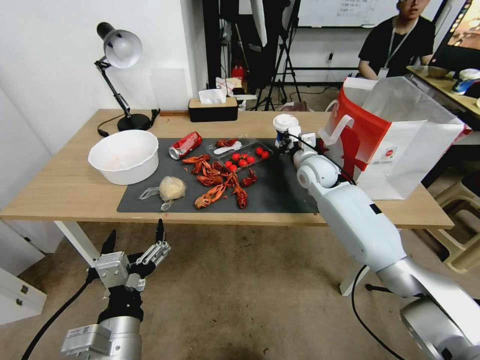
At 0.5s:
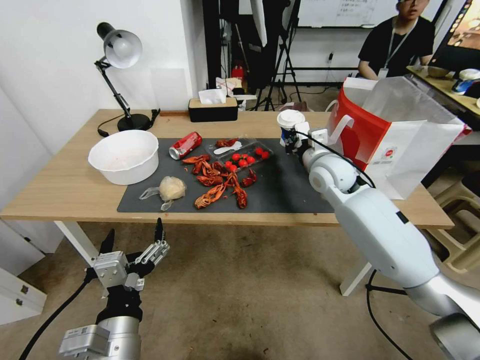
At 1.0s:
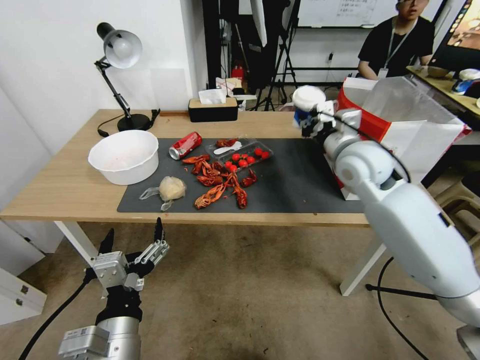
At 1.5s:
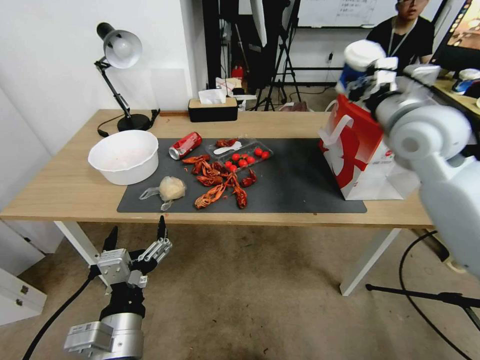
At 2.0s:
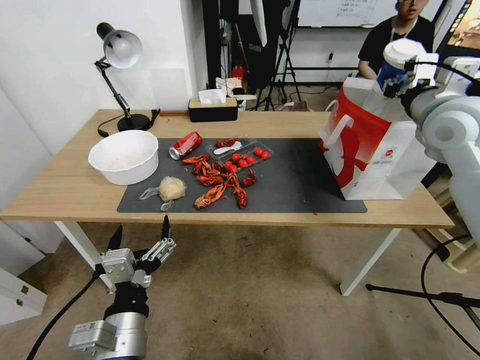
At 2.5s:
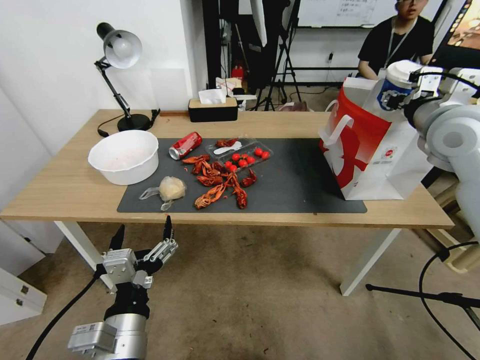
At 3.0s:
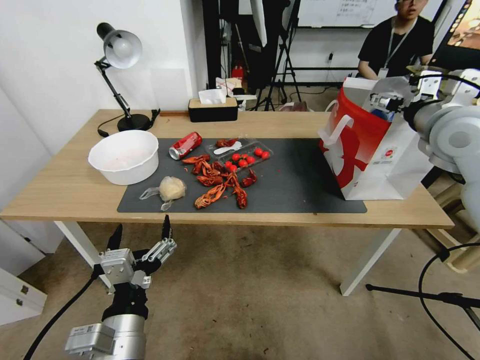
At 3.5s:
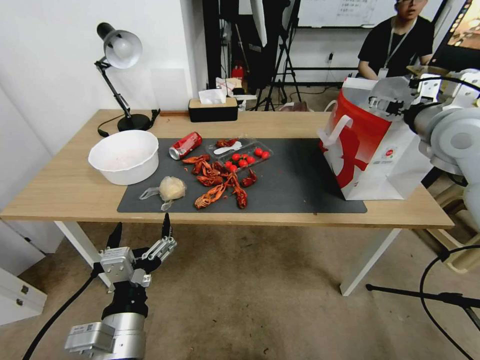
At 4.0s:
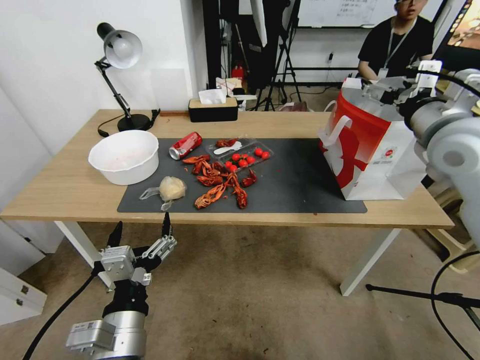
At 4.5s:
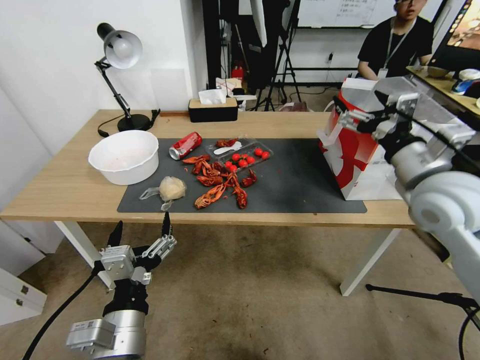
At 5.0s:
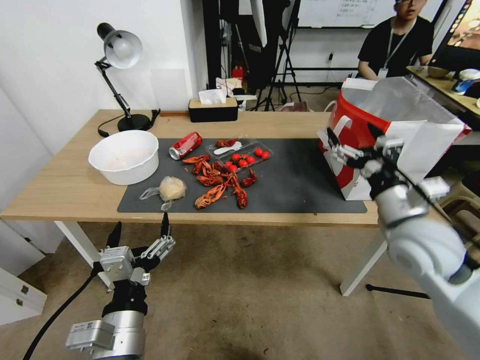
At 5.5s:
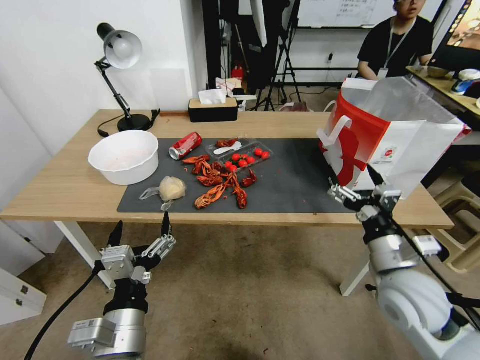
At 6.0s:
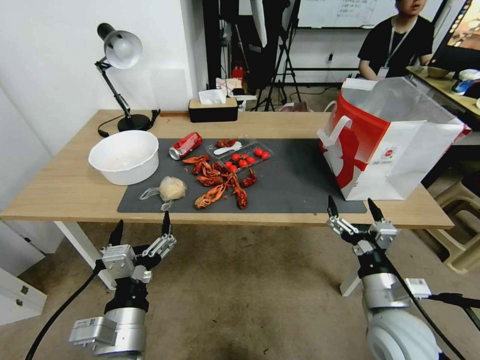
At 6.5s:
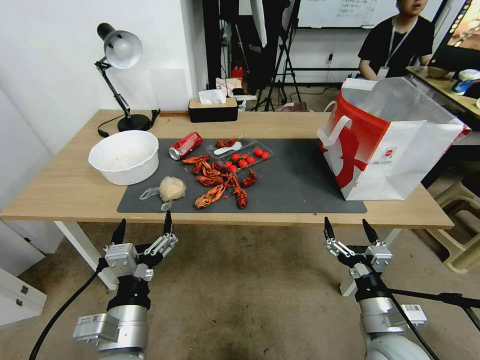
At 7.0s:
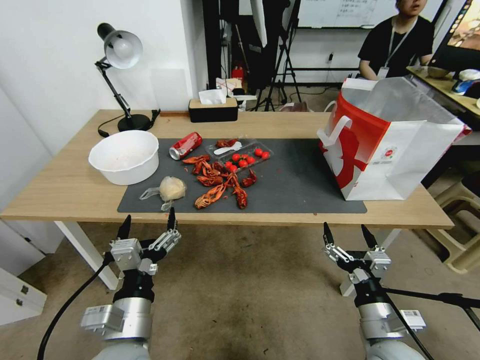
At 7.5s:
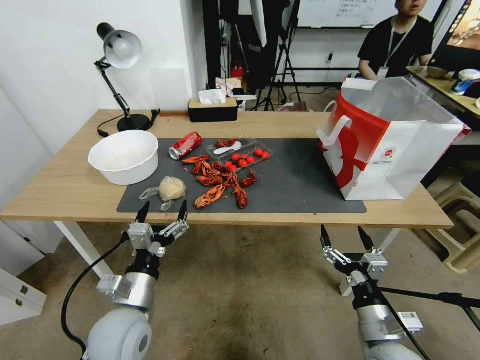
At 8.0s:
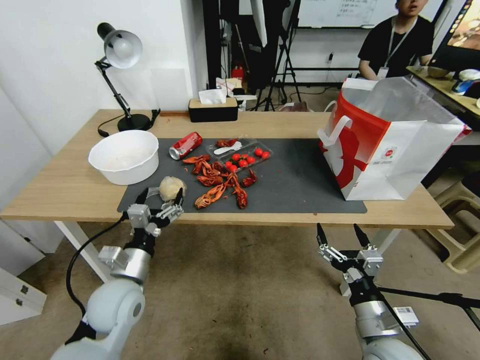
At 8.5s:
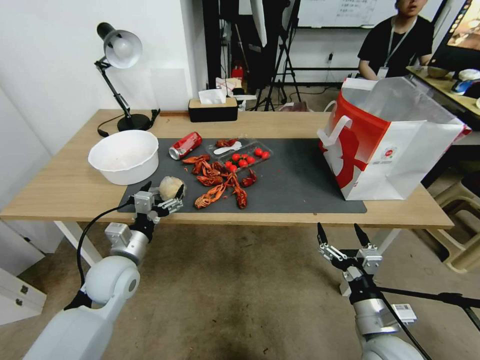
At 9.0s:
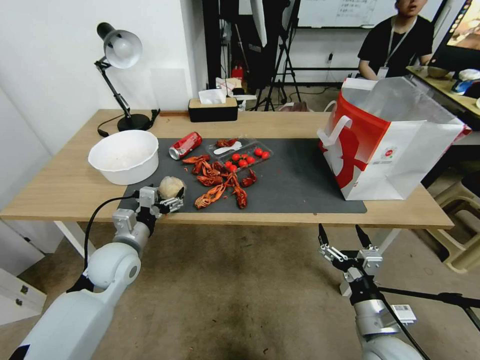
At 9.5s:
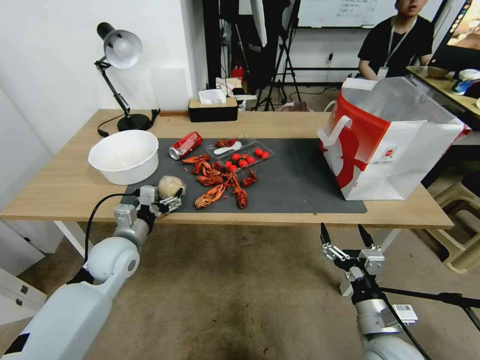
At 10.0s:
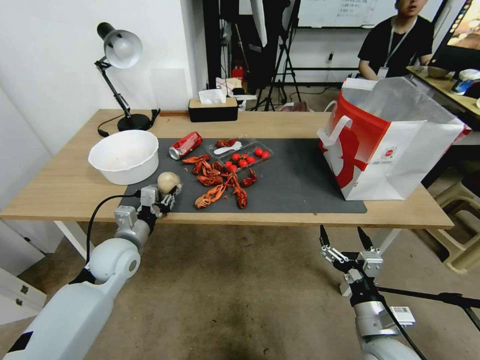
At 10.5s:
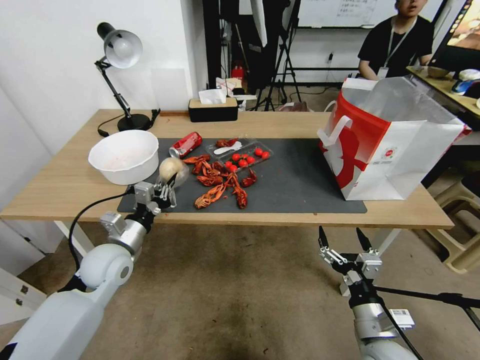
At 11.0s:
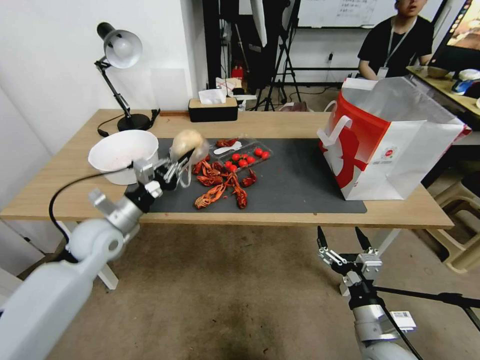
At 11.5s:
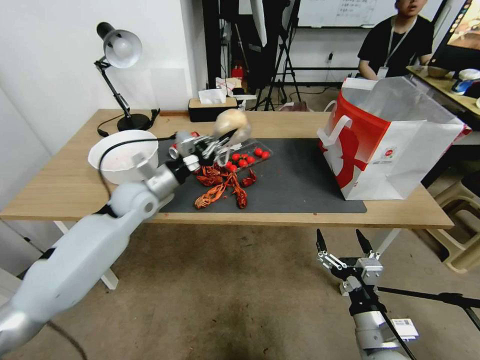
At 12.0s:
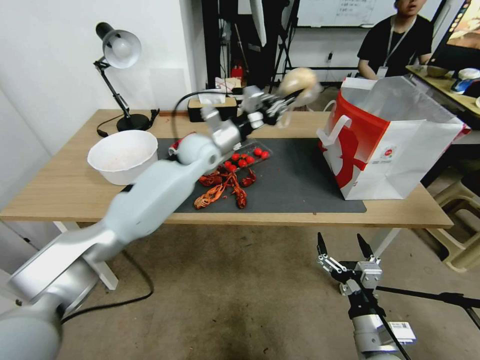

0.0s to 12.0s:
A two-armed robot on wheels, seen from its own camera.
0.0s to 2.0s: The right gripper moves upward, to the right and backward, roughly 30 cm.
2.0s to 4.0s: The right gripper opens its fingers.
4.0s to 6.0s: The right gripper is displaced downward and backward by approximately 35 cm.
6.0s to 8.0s: The right gripper moves about 5 cm. The left gripper travels forward, to the left and downward by approximately 15 cm.
8.0s to 10.0s: The left gripper moves forward, some 10 cm, and closes its fingers.
10.0s to 12.0s: The left gripper goes roughly 30 cm forward, to the right and upward.

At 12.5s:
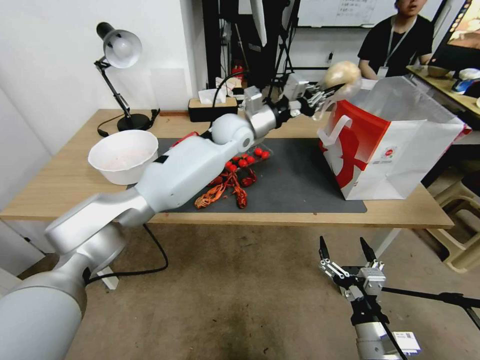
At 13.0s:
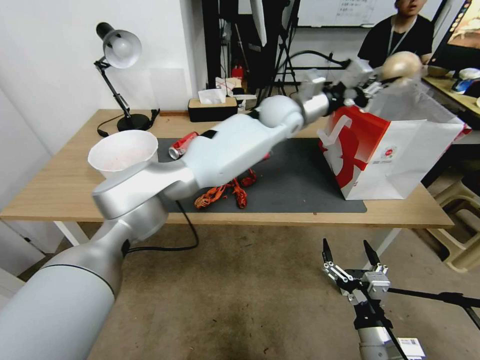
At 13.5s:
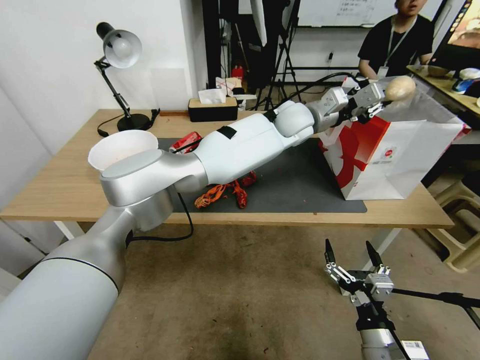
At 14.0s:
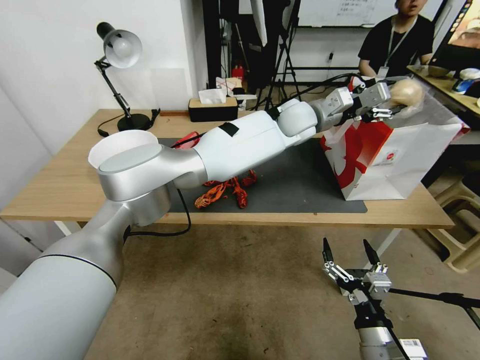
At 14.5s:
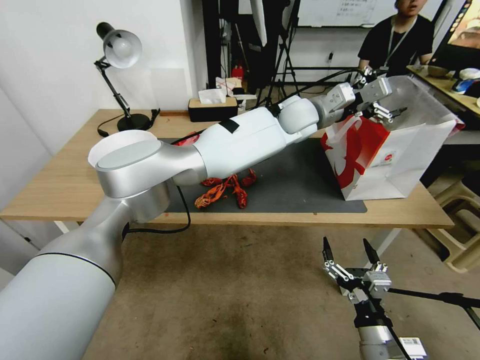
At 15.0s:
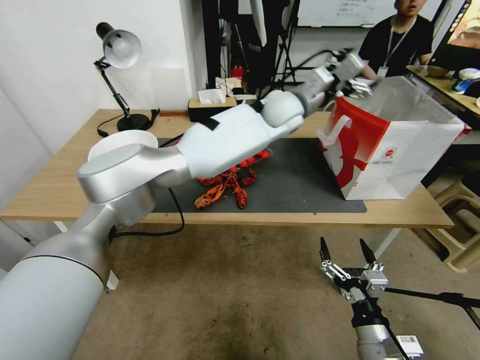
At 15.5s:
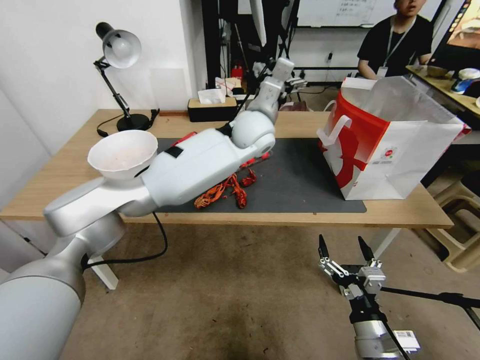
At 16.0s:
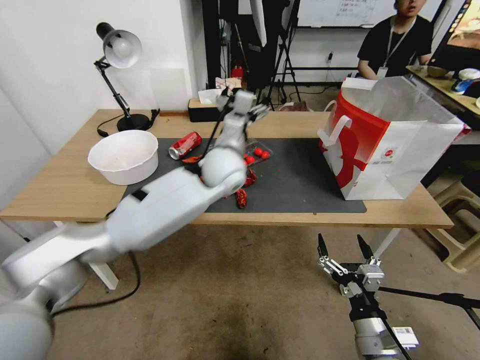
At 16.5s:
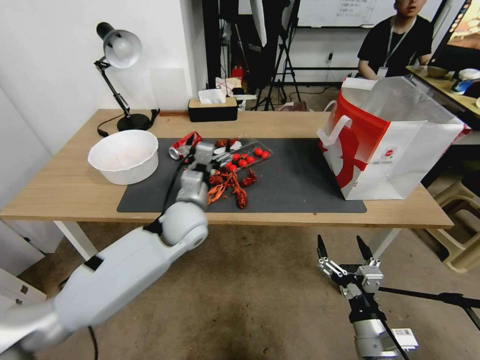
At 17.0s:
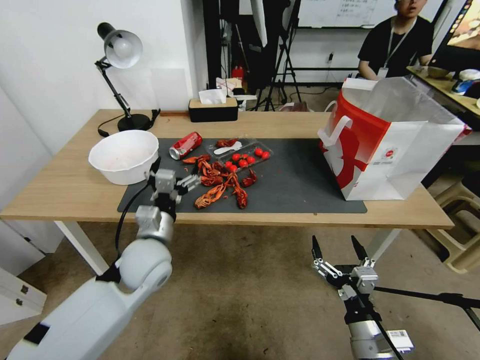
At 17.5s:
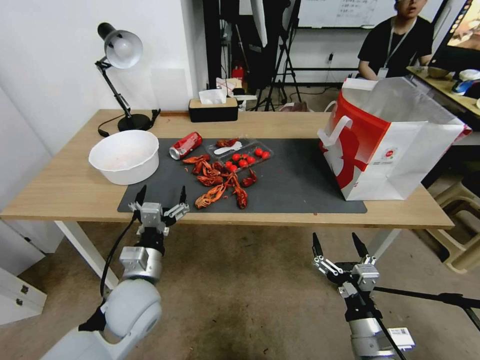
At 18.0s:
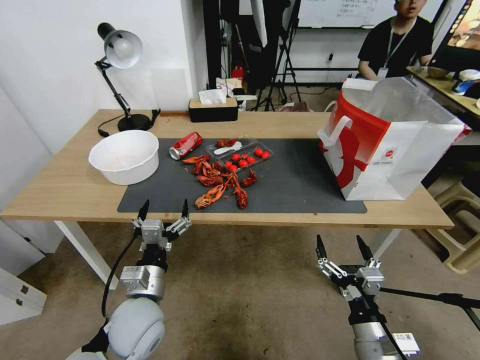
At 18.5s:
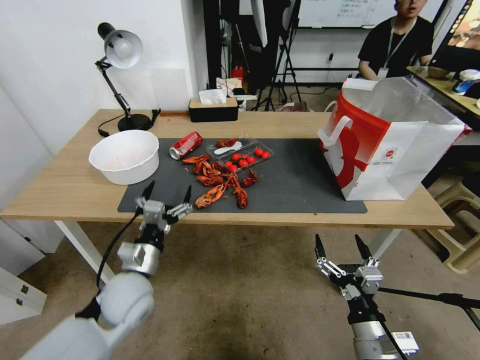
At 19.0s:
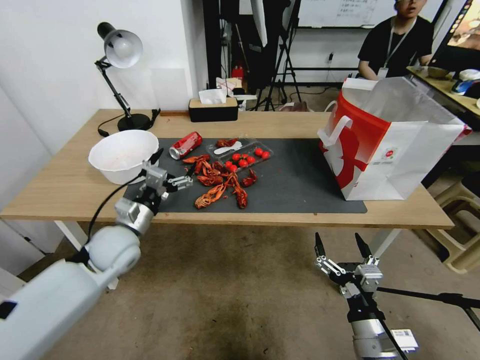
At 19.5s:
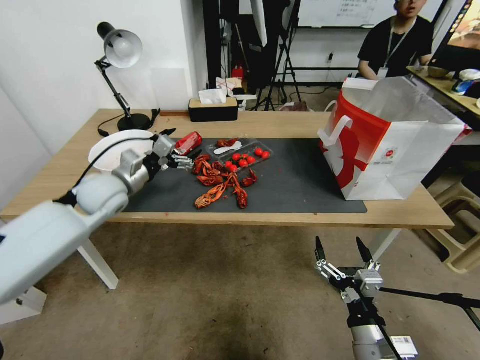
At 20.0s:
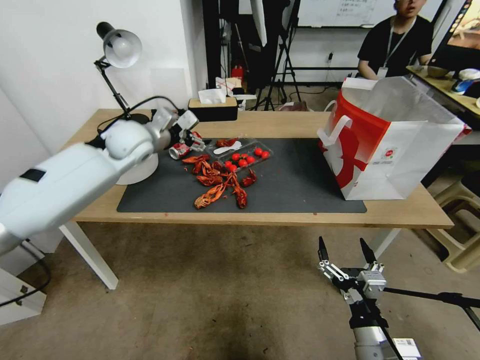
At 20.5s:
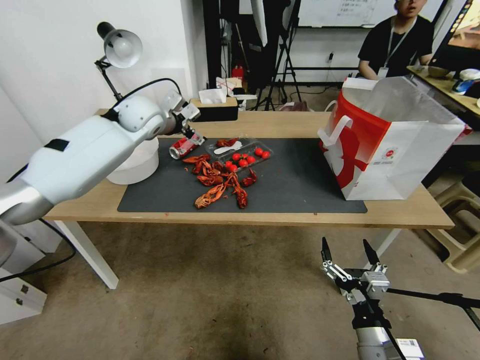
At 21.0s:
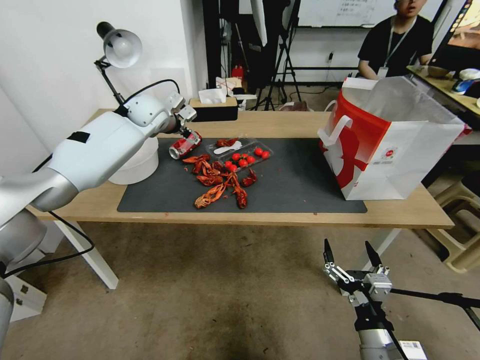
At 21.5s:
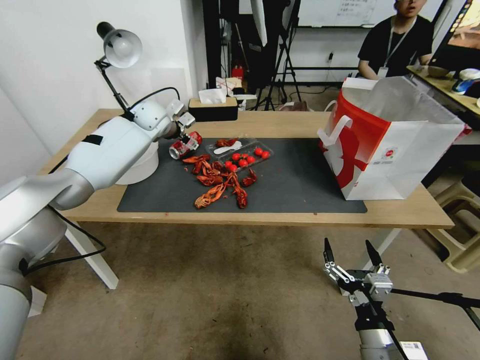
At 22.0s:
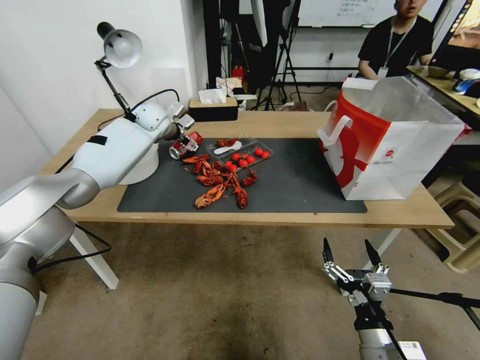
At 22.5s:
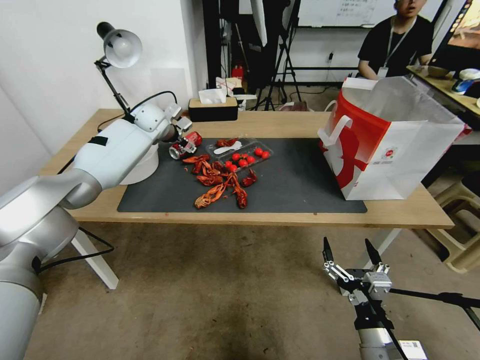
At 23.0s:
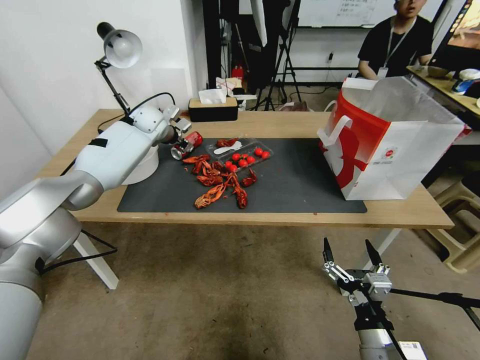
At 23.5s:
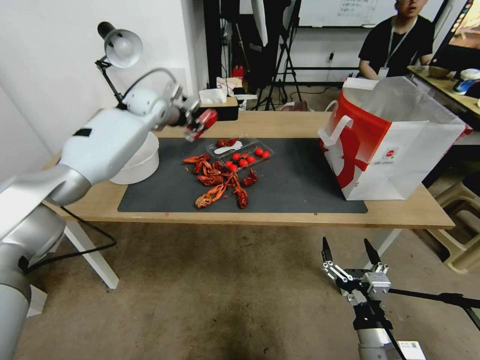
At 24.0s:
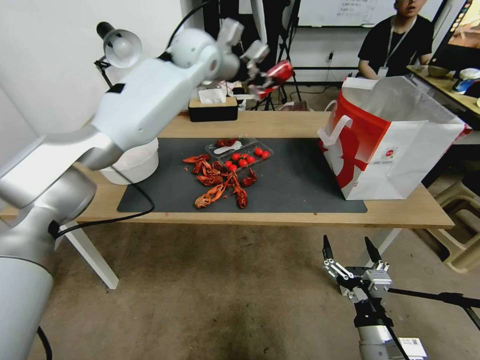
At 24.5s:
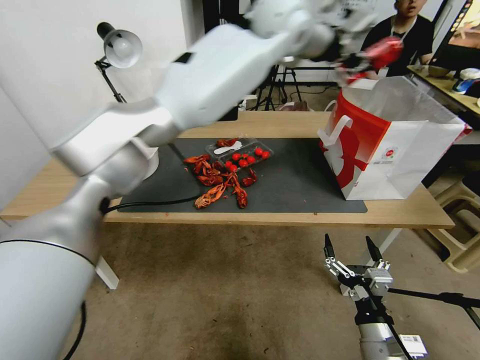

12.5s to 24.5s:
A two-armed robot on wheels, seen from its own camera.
12.5s to 14.5s: The left gripper travels to the right by some 15 cm, and opens.
14.5s to 16.5s: The left gripper travels to the left, downward and backward by some 25 cm.
16.5s to 18.5s: The left gripper shifts approximately 25 cm backward, to the left and downward.
18.5s to 20.5s: The left gripper goes about 40 cm forward and upward.
20.5s to 22.5s: The left gripper heads forward and downward, covering some 10 cm.
22.5s to 24.5s: The left gripper moves to the right and upward, some 40 cm, and closes its fingers.

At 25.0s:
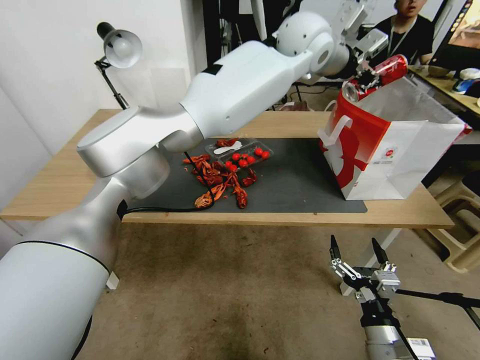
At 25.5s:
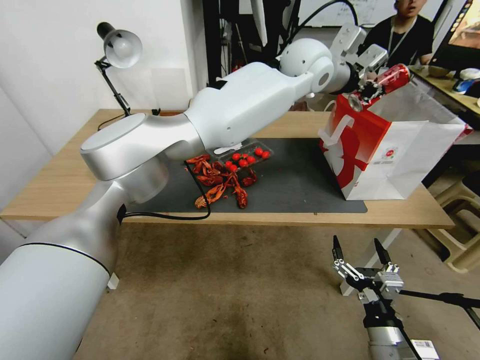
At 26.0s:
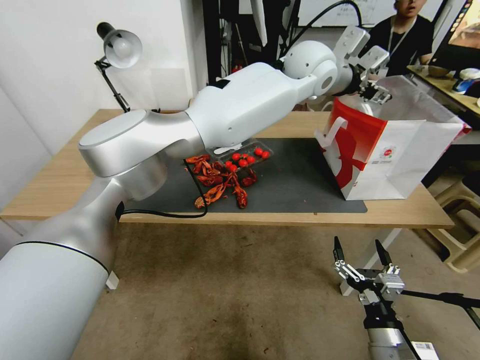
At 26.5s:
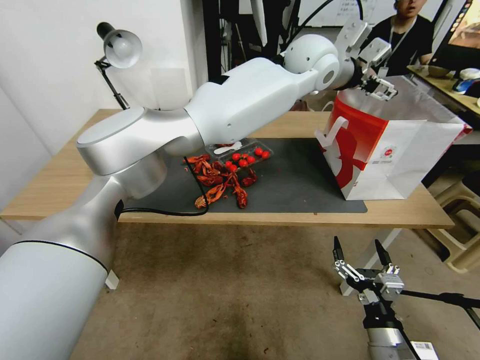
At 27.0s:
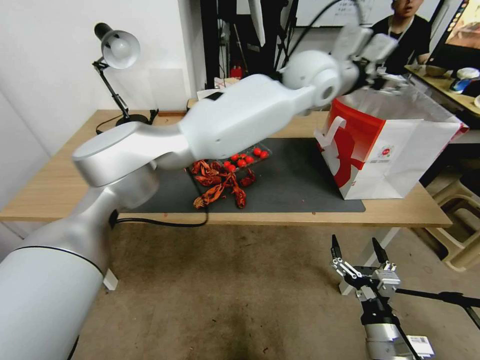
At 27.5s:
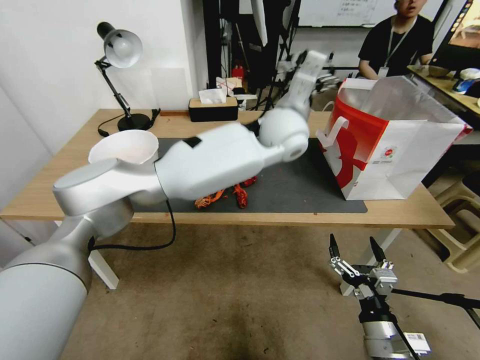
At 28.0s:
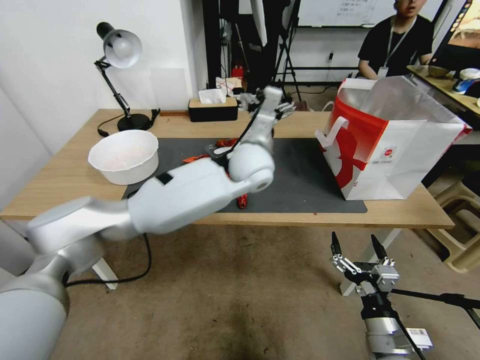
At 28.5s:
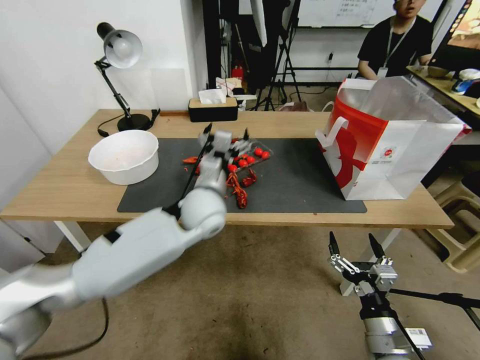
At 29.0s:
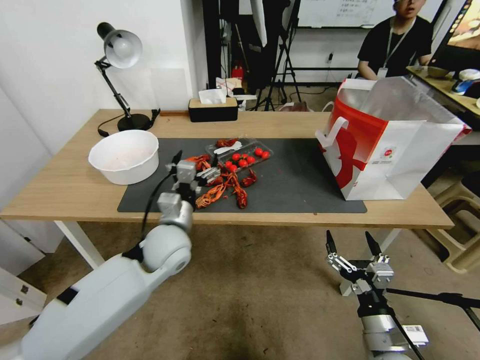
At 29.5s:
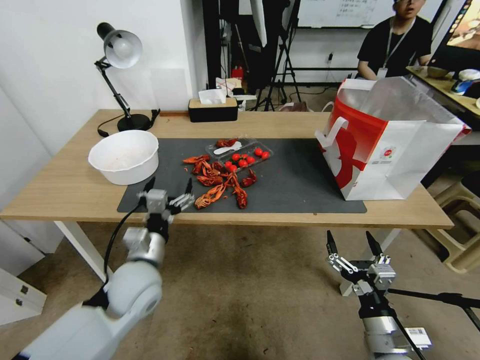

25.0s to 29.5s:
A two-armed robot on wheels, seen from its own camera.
25.0s to 27.0s: The left gripper shifts some 5 cm downward, and opens up.
27.0s to 29.5s: The left gripper is displaced to the left, downward and backward by about 50 cm.
